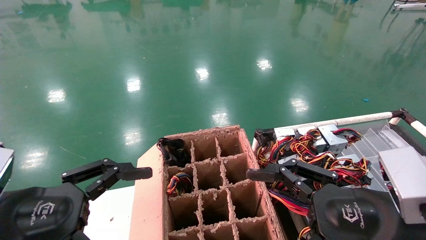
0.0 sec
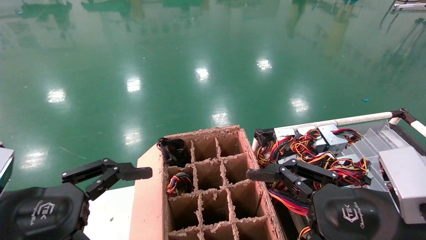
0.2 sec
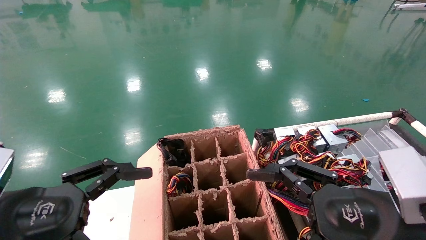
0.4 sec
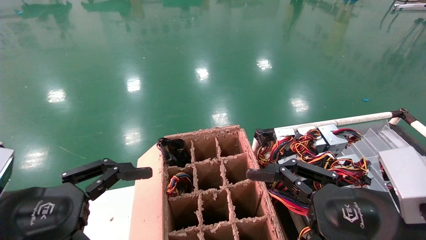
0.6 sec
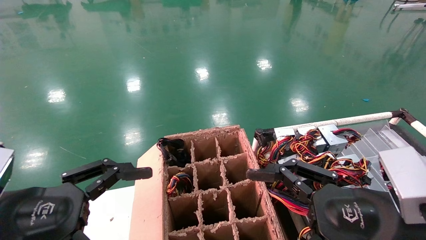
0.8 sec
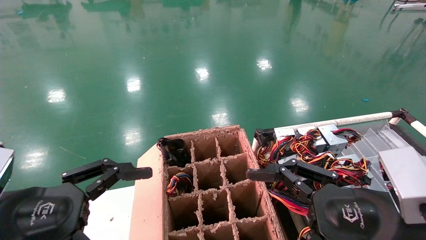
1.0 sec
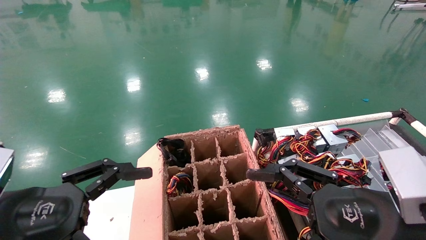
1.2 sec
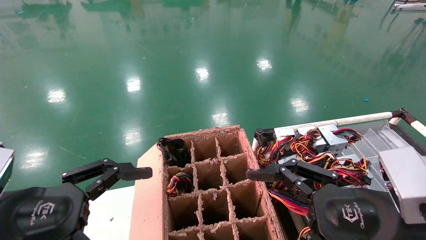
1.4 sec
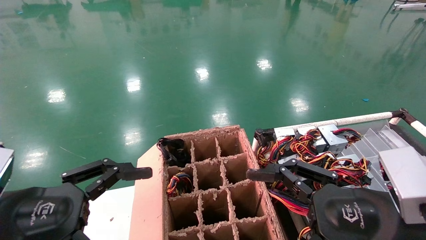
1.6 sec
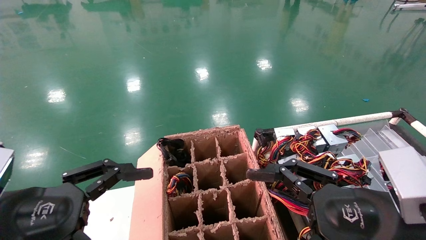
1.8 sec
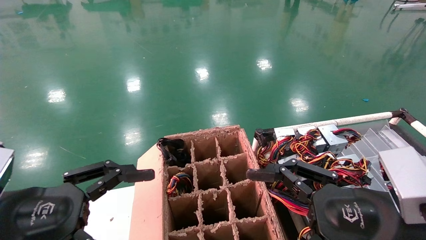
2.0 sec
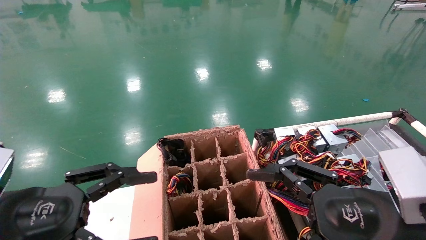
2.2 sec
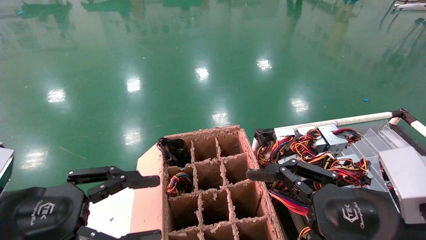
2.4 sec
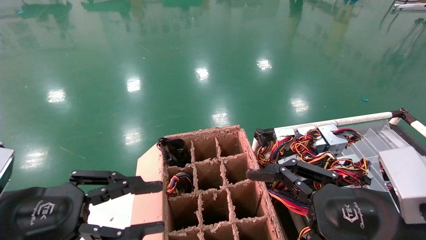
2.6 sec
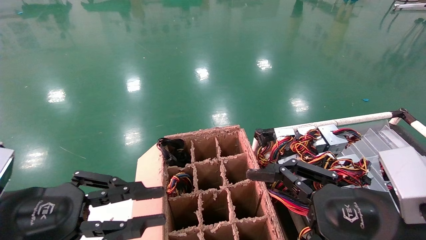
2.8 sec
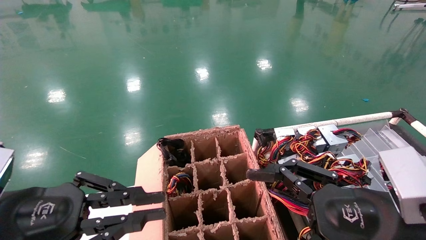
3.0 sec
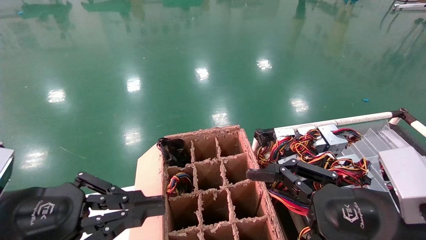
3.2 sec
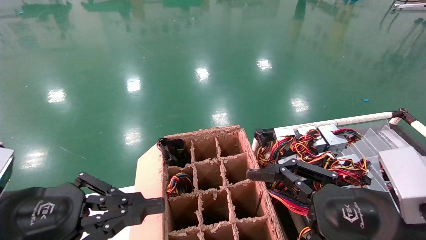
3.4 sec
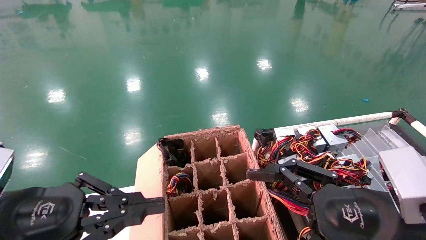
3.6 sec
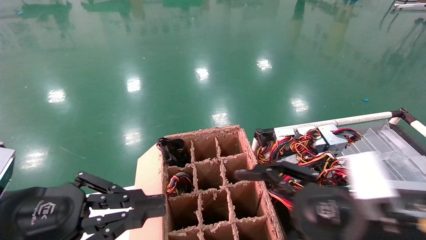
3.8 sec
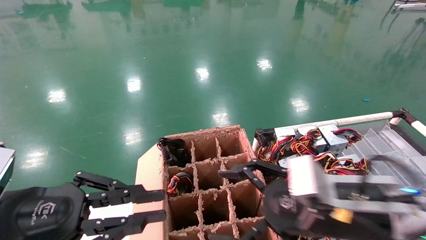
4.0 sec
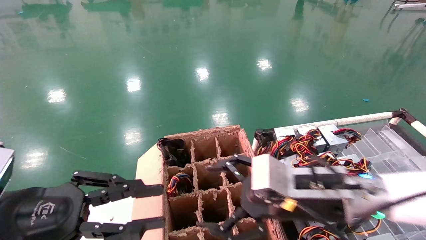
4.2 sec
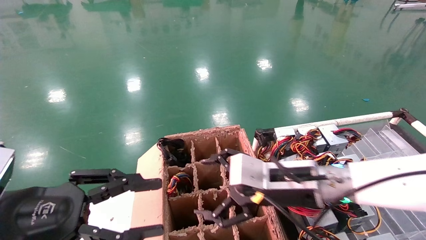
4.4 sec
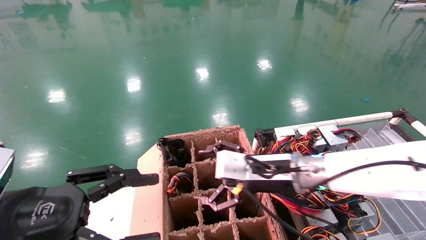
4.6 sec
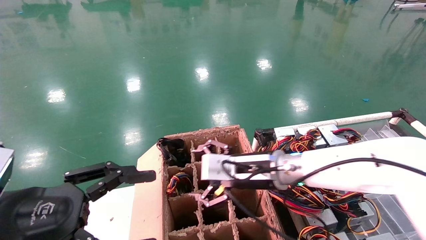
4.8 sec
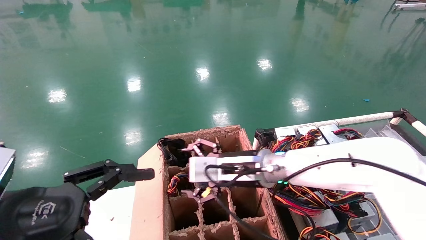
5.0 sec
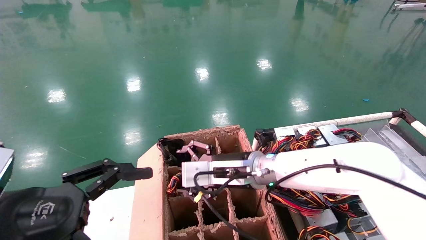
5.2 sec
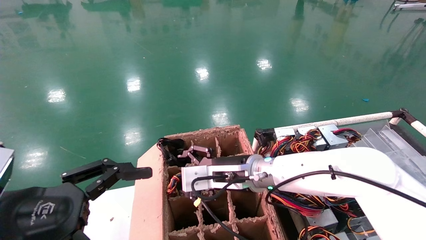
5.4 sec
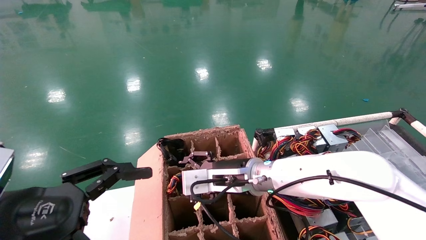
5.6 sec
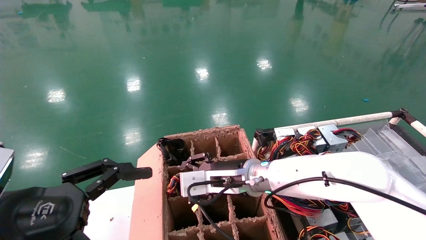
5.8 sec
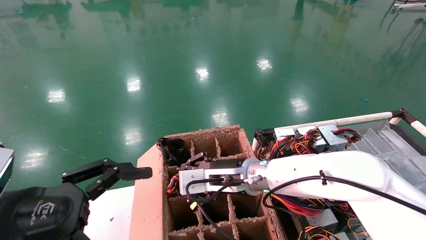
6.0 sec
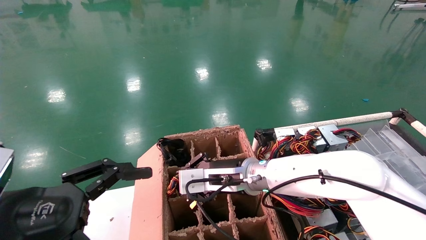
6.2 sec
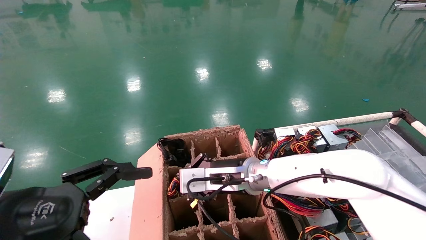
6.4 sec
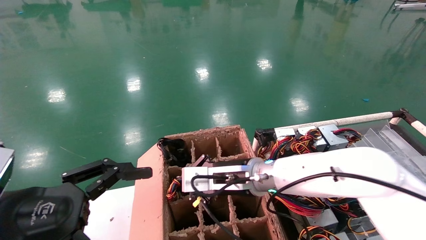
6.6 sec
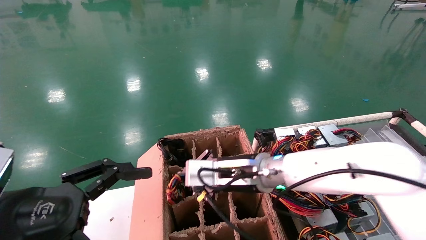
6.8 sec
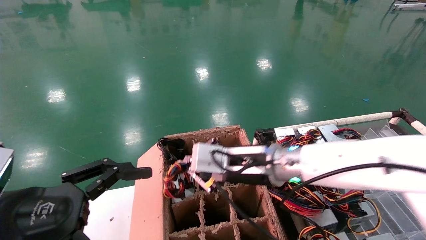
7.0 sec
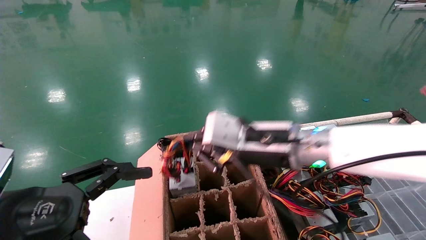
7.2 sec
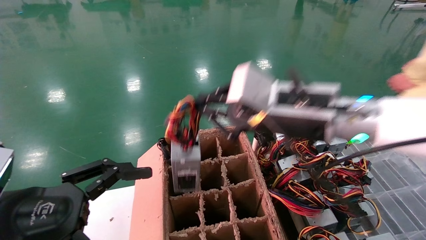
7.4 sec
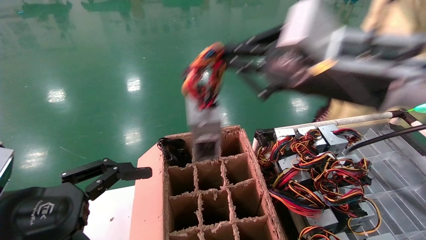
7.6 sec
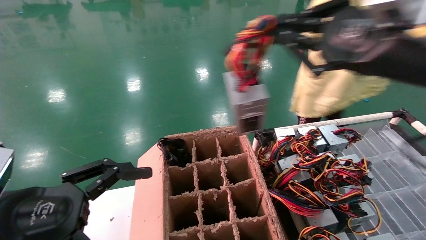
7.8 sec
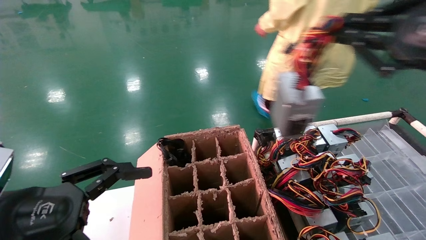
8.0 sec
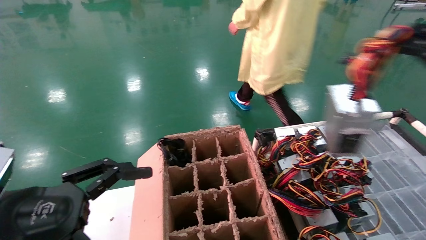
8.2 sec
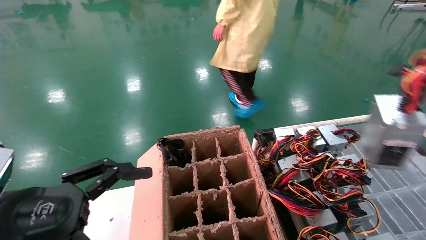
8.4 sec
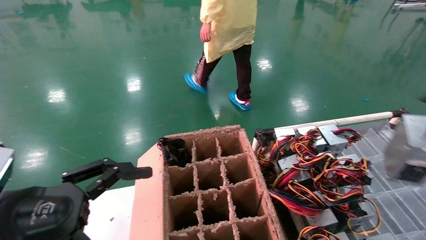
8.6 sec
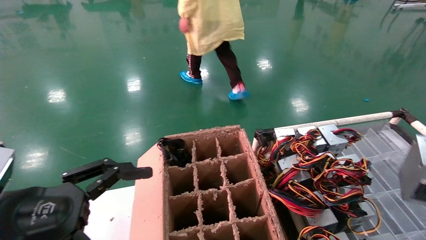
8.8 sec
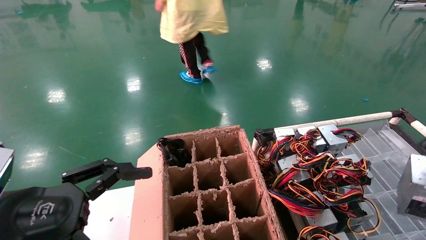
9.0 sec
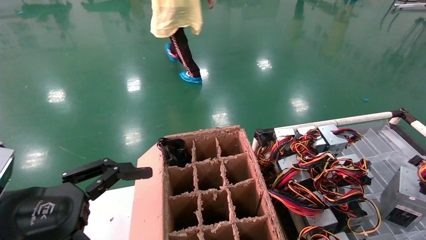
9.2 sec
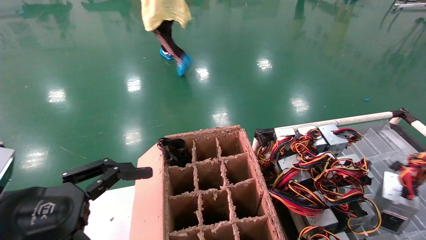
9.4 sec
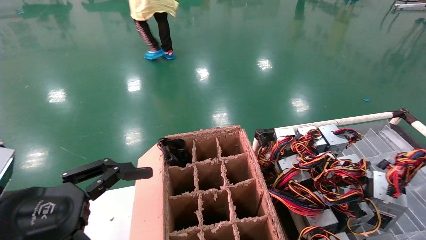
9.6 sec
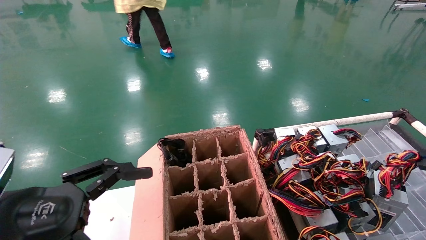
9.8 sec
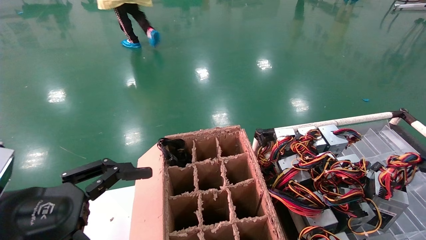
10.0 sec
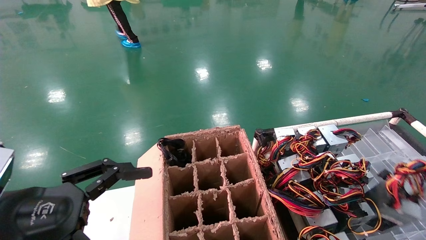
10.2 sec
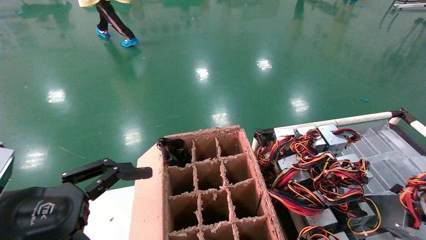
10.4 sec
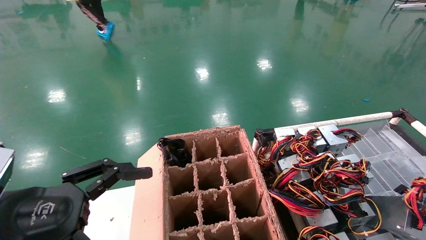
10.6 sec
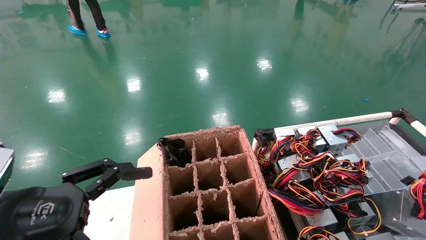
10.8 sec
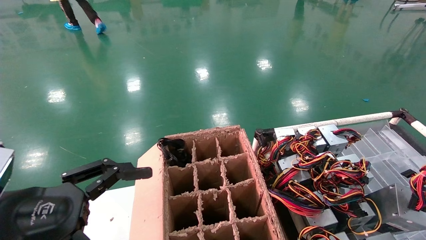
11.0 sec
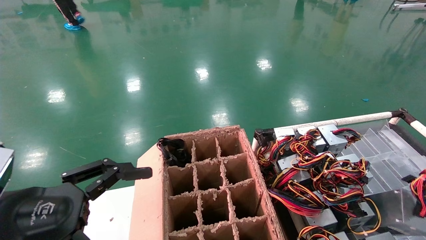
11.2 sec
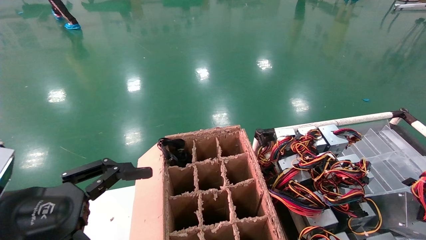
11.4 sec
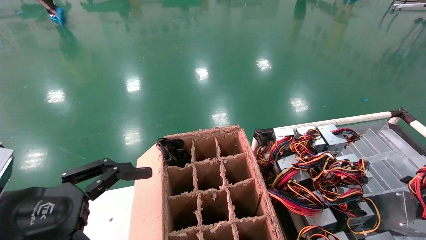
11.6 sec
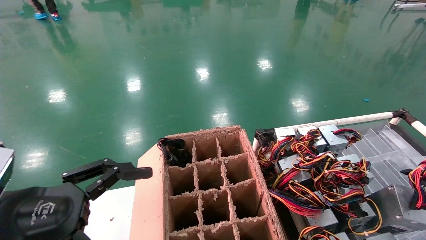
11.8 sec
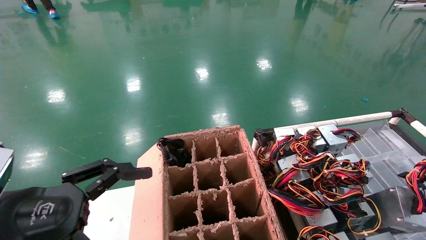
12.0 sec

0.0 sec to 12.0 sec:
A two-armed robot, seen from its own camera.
Step, 2.2 sec to 6.4 sec: Grab and lift the power supply from the large box.
0.0 sec to 1.6 sec: The two grippers keep their place.
1.6 sec to 3.0 sec: The left gripper closes.
3.0 sec to 4.4 sec: The right gripper travels forward and to the left by roughly 15 cm.
4.4 sec to 6.0 sec: The left gripper opens up. Meanwhile the right gripper goes roughly 10 cm to the left and forward, and closes.
6.0 sec to 7.6 sec: The right gripper moves upward, to the right and backward, some 25 cm, and closes its fingers.
7.6 sec to 9.0 sec: The right gripper is displaced to the right by roughly 35 cm.
9.0 sec to 10.4 sec: The right gripper moves downward, approximately 10 cm.
10.4 sec to 12.0 sec: The grippers stay close to where they were, moving slightly.

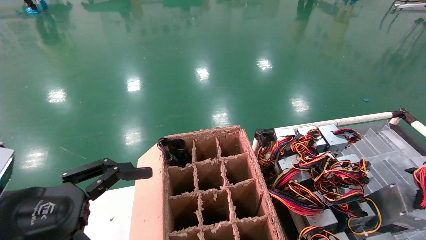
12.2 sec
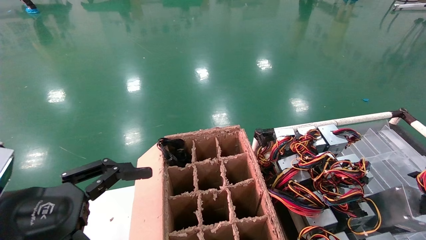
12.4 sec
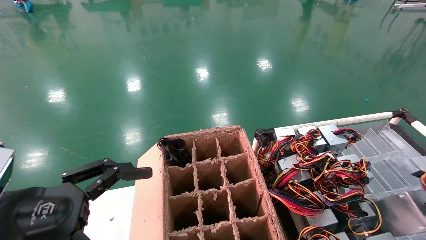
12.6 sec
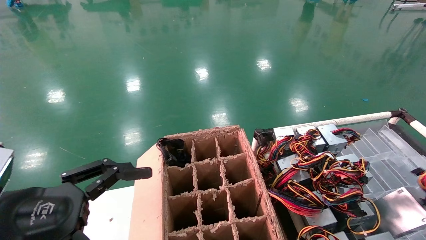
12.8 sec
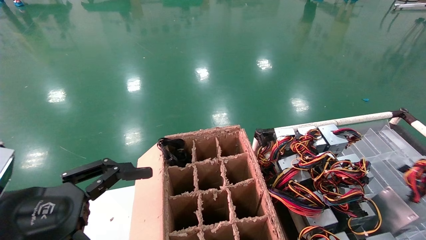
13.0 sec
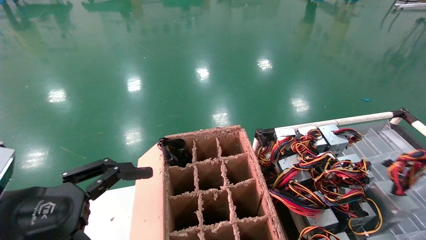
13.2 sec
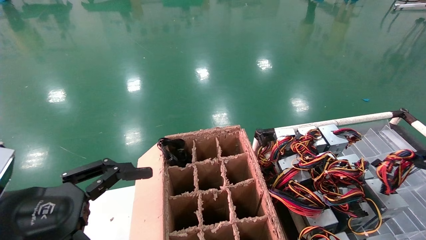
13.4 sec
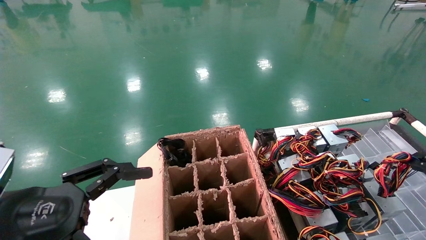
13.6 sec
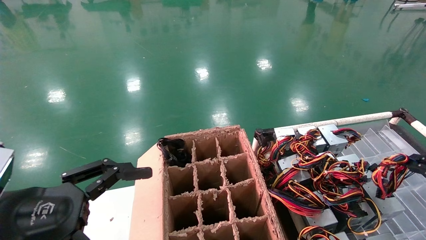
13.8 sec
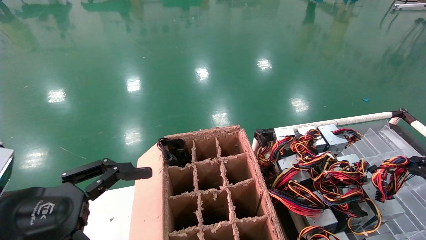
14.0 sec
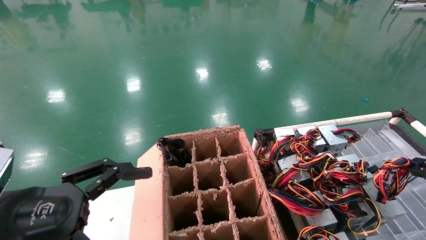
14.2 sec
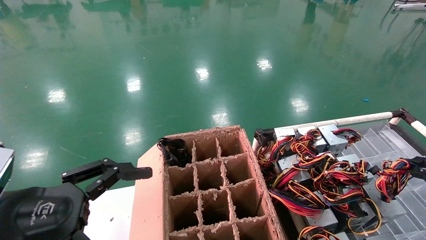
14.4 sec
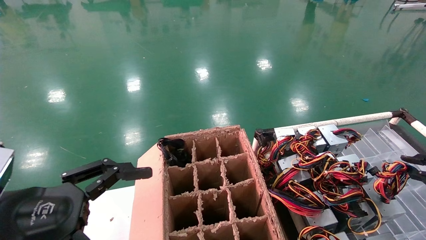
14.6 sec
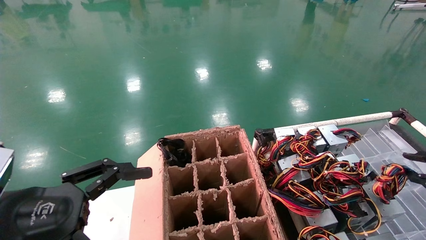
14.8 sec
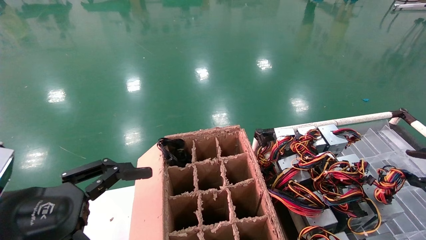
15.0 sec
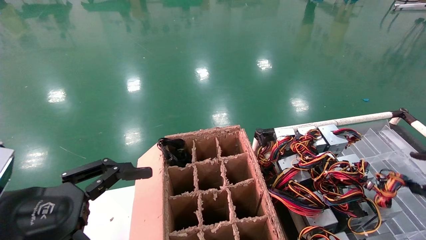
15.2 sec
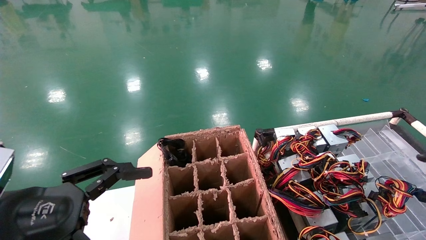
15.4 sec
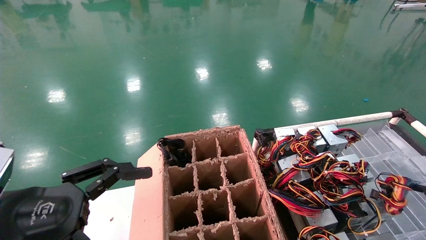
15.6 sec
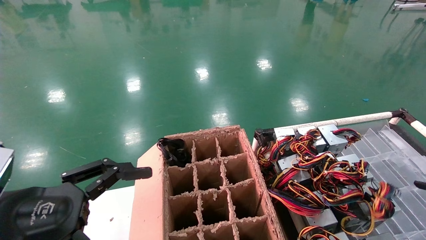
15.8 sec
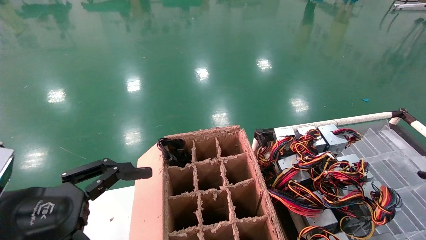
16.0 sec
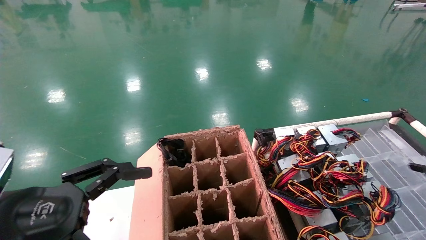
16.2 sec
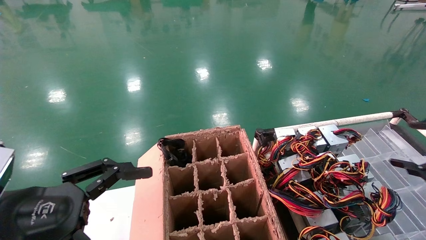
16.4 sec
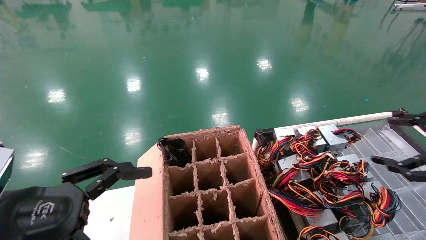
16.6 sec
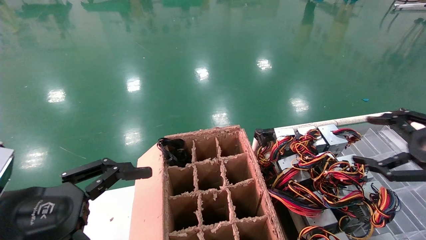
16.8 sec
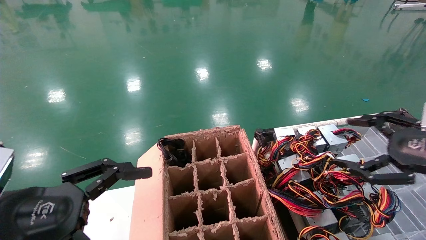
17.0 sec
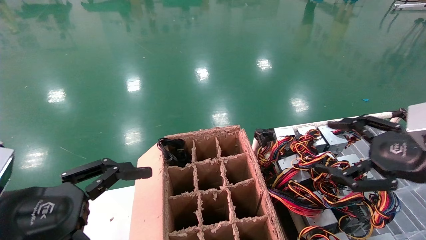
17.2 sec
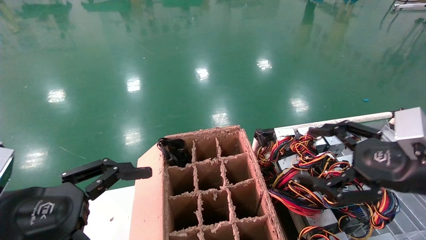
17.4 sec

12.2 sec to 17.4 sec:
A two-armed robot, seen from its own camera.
Step, 12.2 sec to 14.6 sec: Place the power supply on the operating table.
12.2 sec to 14.0 sec: The right gripper changes place by roughly 5 cm.
14.0 sec to 15.6 sec: The right gripper opens up.
15.6 sec to 17.4 sec: The right gripper travels to the left by about 20 cm.
